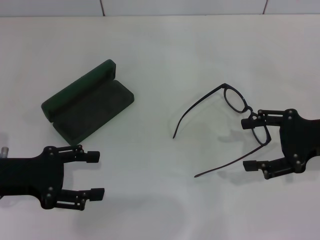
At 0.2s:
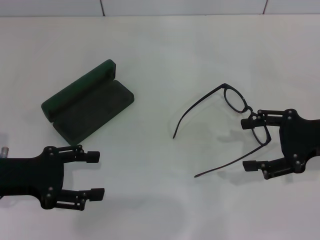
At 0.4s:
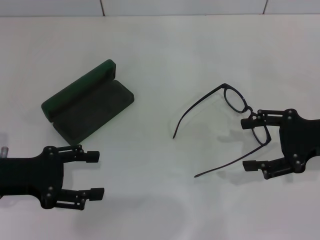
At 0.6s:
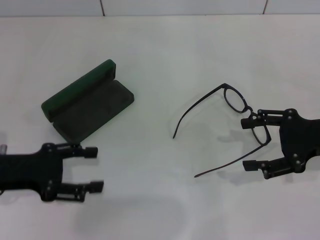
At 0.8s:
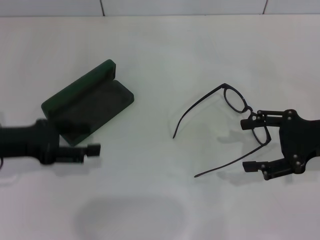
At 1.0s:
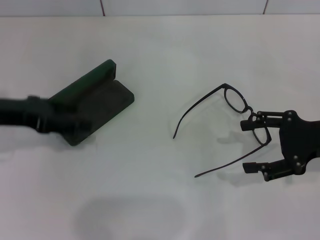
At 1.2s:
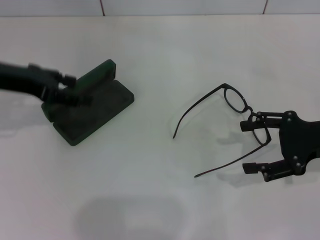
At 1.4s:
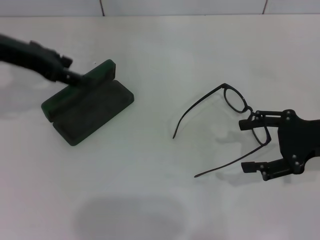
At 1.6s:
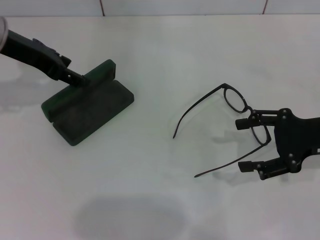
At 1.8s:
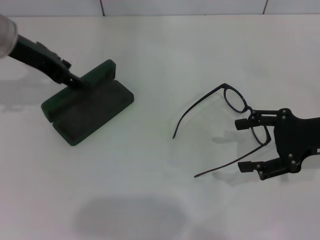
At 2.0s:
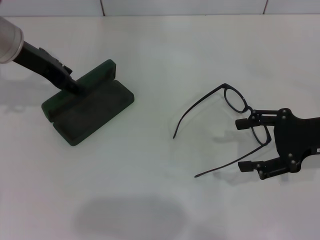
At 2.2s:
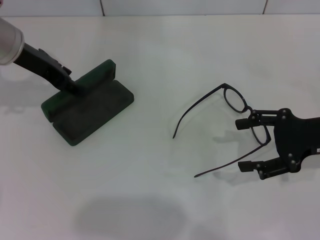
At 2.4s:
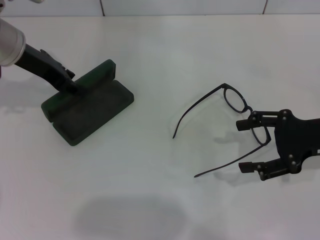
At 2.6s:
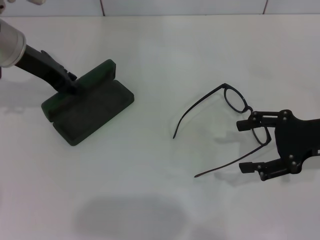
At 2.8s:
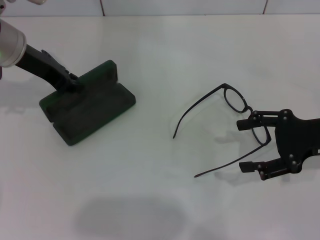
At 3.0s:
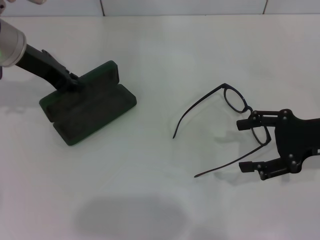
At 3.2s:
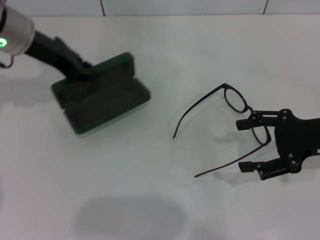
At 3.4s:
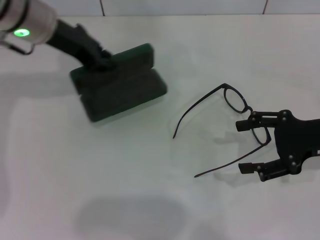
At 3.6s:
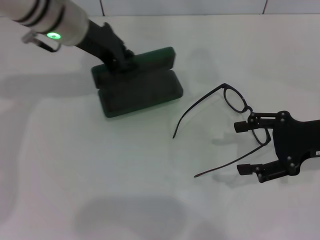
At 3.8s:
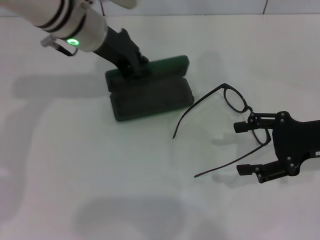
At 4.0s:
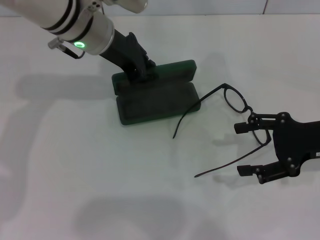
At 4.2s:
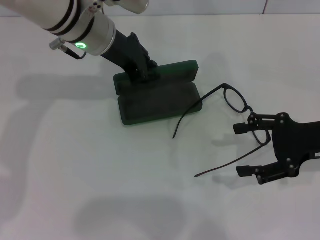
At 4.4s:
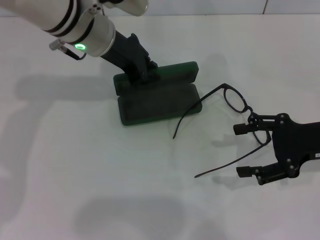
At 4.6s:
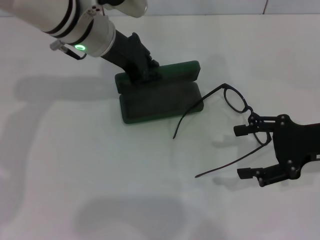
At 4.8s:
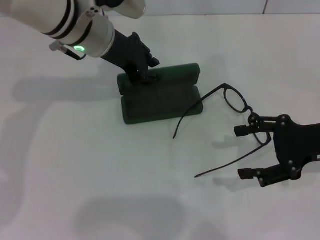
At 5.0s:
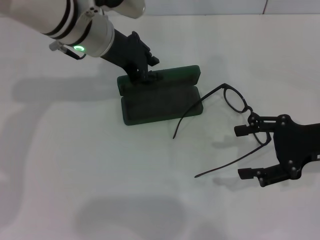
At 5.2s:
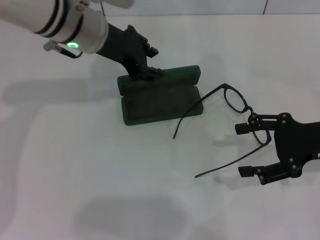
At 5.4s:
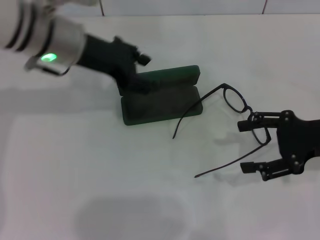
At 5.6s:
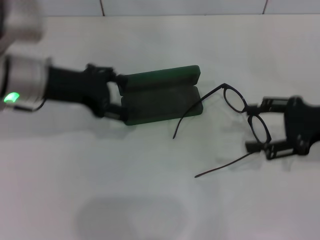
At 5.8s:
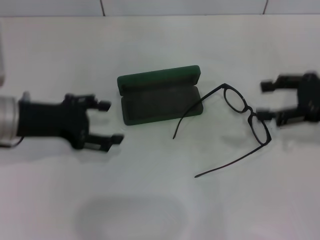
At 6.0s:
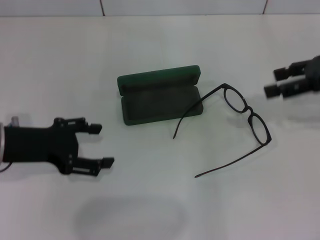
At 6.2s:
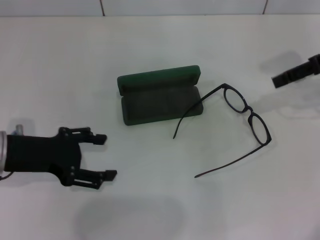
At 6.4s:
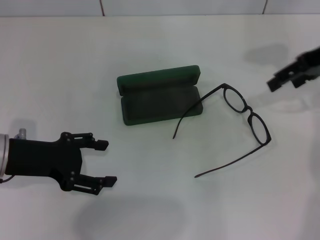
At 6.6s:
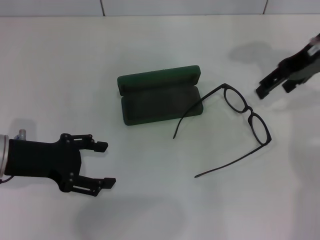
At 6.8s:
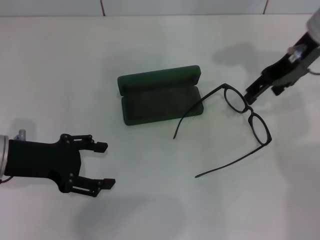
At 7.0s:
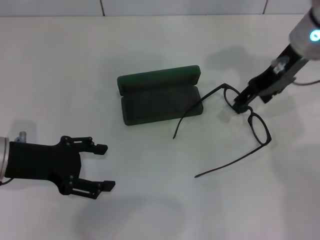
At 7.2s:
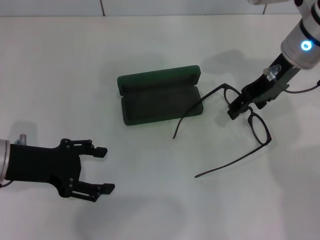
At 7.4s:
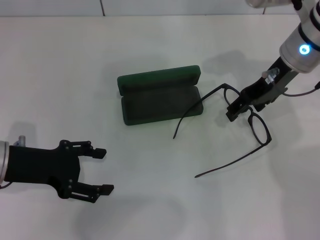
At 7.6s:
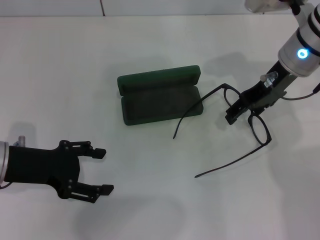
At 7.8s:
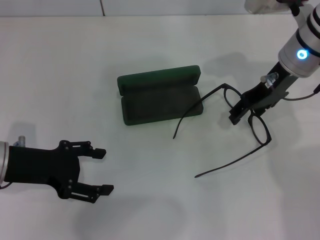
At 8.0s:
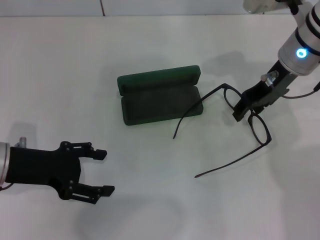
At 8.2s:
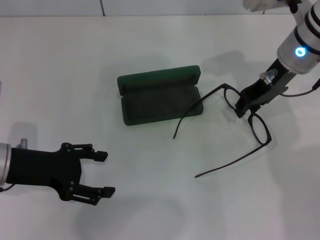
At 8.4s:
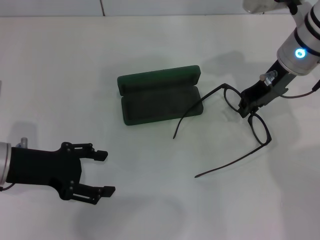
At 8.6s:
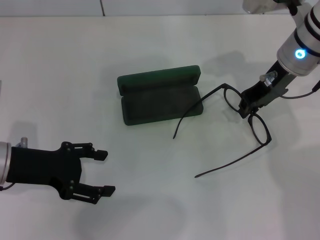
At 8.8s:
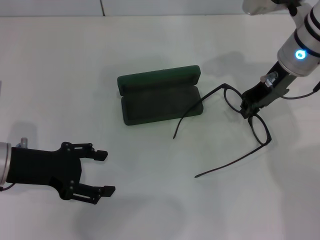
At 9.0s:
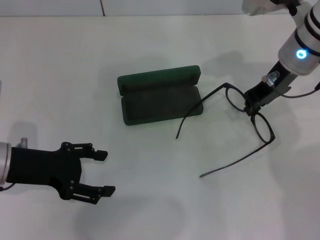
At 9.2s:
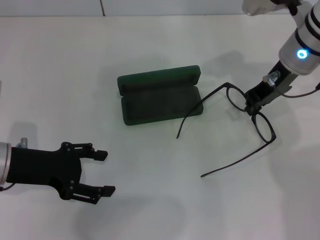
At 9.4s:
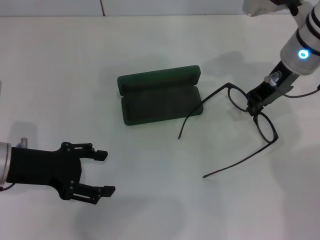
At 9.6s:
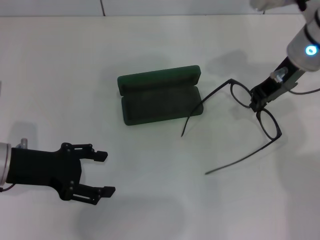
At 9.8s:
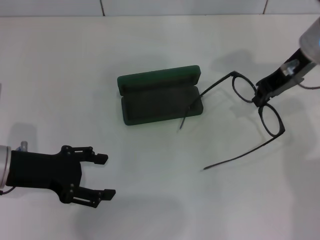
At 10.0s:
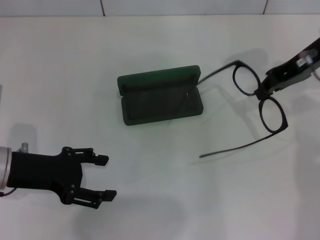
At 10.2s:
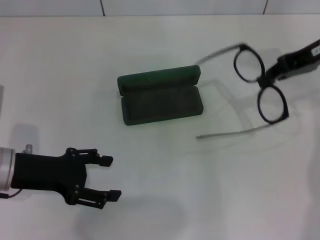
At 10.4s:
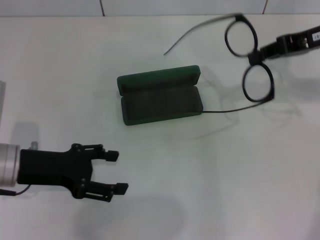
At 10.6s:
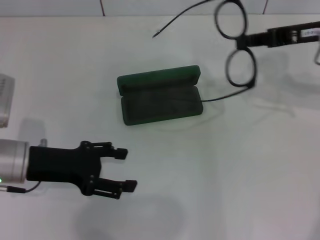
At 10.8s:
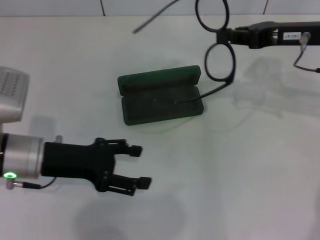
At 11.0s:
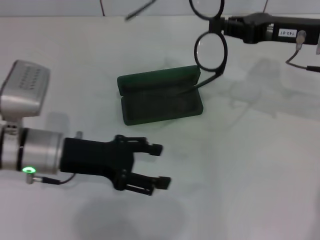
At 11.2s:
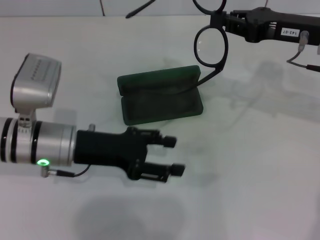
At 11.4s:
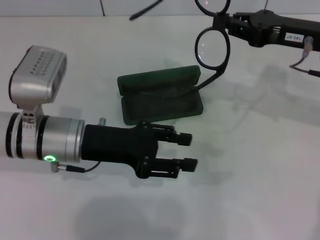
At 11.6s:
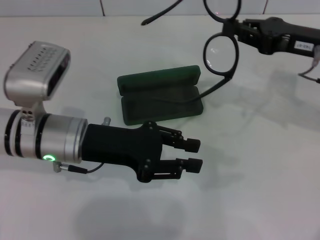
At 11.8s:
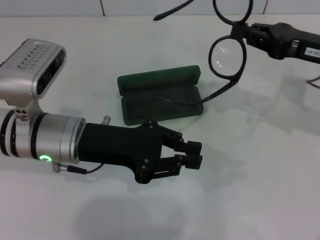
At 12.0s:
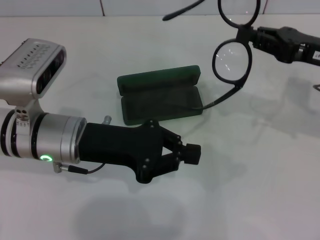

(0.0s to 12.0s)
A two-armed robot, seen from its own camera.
Step, 0.0s - 2.8s: Grab the glasses case with your left hand.
Step, 3.0s - 5.0s: Place the glasses case in the center of the table with your left hand.
Step, 5.2s - 8.4s: Grab the eyeglass frame with your right hand.
0.0s - 1.6s: The left gripper goes about 20 cm forward and upward.
1.6s - 3.0s: The left gripper closes.
3.0s - 4.4s: The left gripper shifts roughly 10 cm to the right.
4.4s - 6.0s: The left gripper shifts some 20 cm to the left, backward and downward, and opens. The right gripper shifts about 10 cm upward and forward.
6.0s - 7.6s: The right gripper shifts about 15 cm to the left.
7.6s - 9.0s: The right gripper closes up.
9.0s - 10.4s: The right gripper shifts approximately 10 cm to the right.
10.4s - 12.0s: The left gripper shifts some 10 cm to the right, and closes its fingers, while the right gripper travels downward by approximately 5 cm.

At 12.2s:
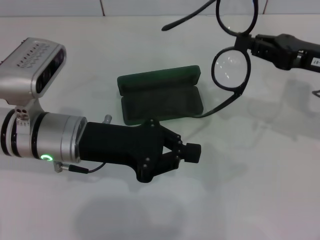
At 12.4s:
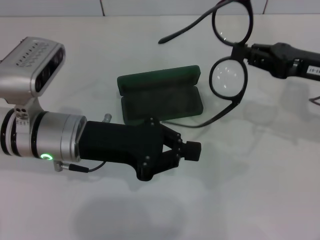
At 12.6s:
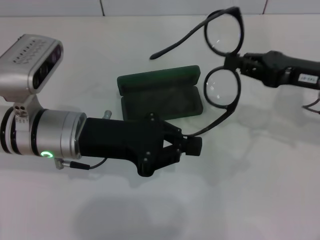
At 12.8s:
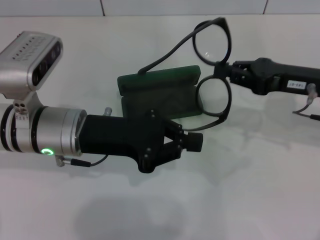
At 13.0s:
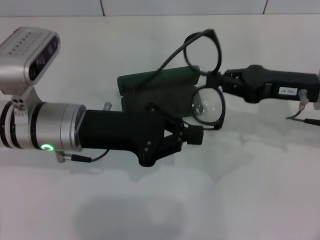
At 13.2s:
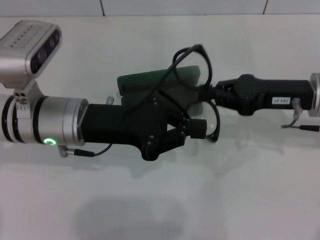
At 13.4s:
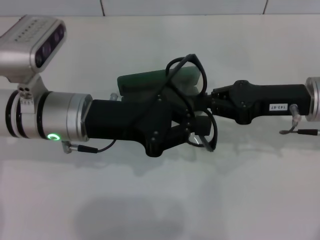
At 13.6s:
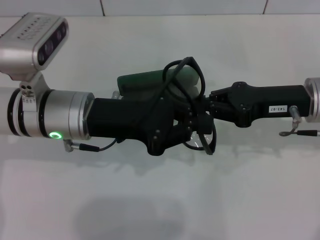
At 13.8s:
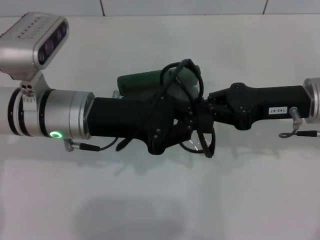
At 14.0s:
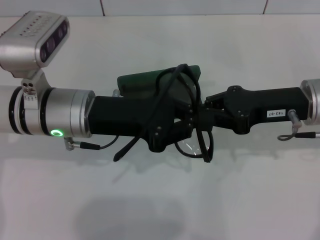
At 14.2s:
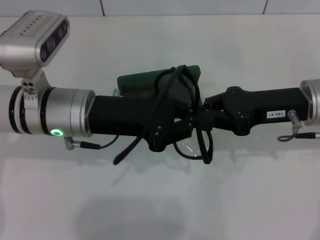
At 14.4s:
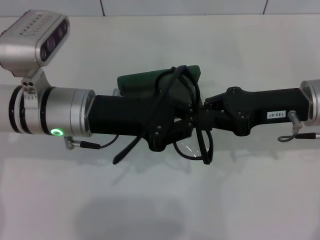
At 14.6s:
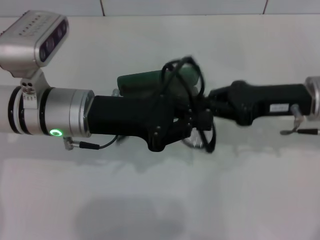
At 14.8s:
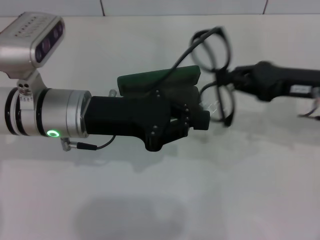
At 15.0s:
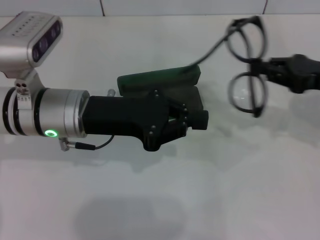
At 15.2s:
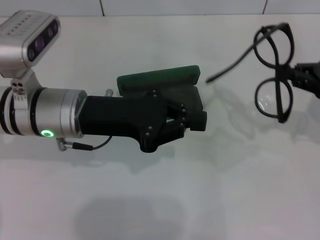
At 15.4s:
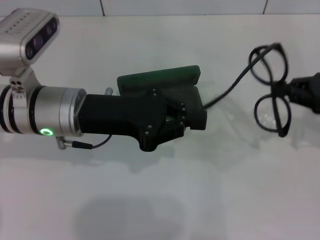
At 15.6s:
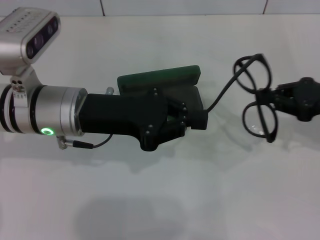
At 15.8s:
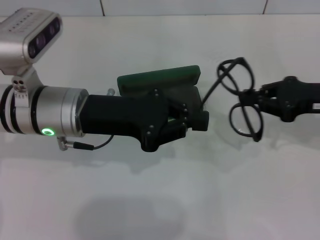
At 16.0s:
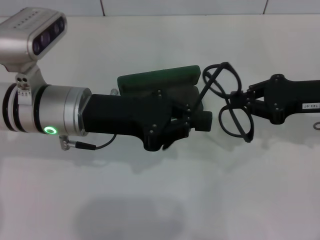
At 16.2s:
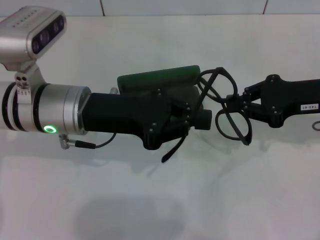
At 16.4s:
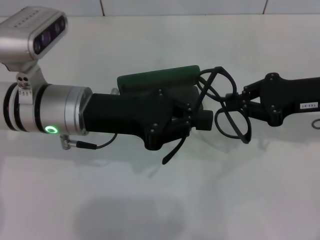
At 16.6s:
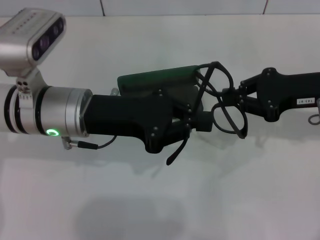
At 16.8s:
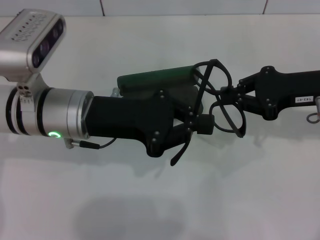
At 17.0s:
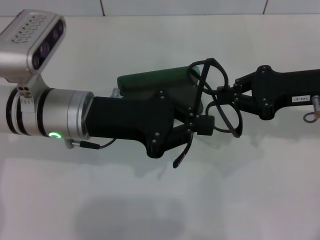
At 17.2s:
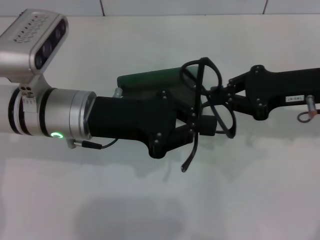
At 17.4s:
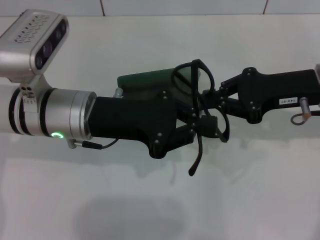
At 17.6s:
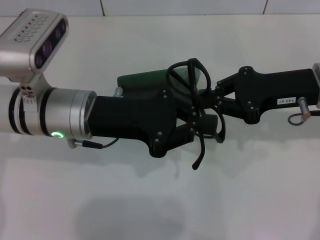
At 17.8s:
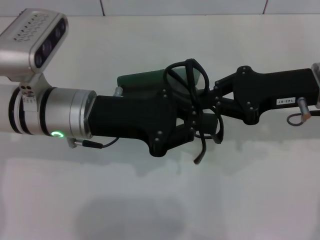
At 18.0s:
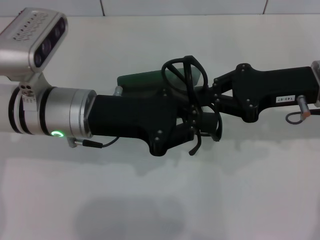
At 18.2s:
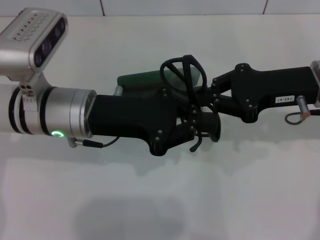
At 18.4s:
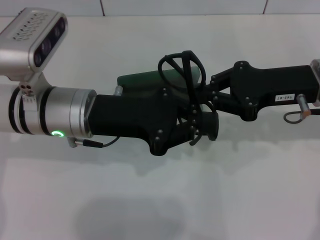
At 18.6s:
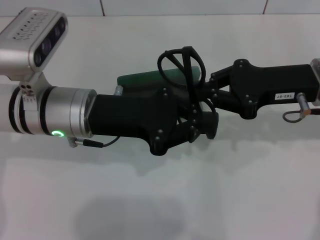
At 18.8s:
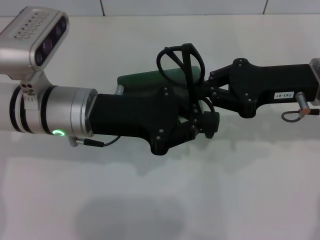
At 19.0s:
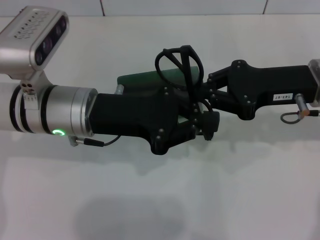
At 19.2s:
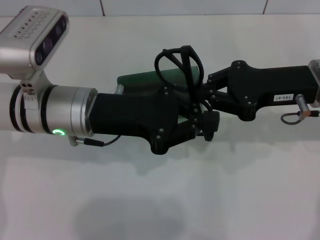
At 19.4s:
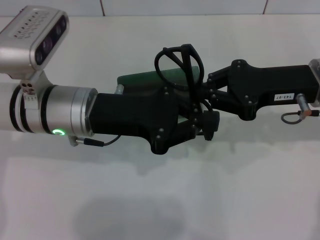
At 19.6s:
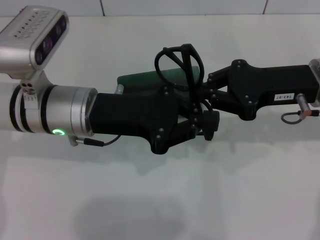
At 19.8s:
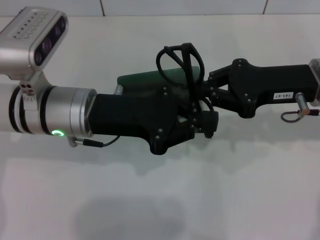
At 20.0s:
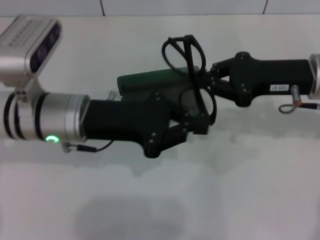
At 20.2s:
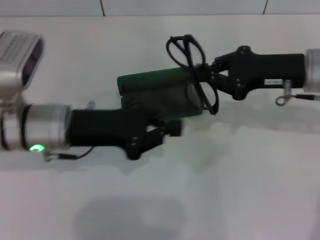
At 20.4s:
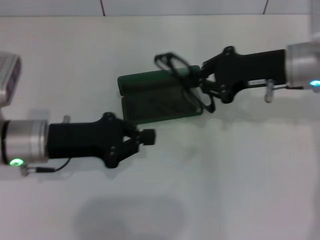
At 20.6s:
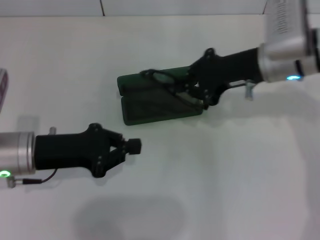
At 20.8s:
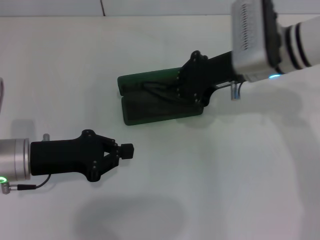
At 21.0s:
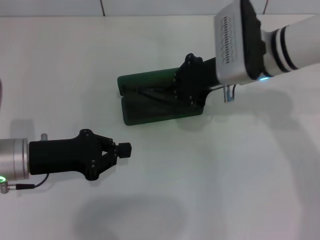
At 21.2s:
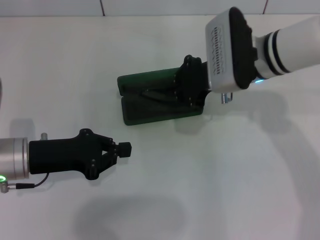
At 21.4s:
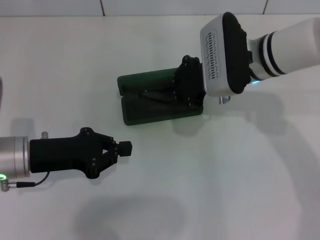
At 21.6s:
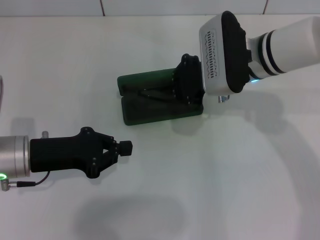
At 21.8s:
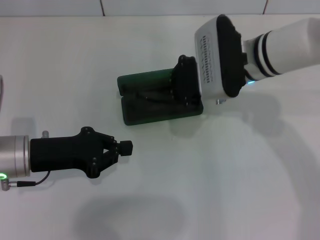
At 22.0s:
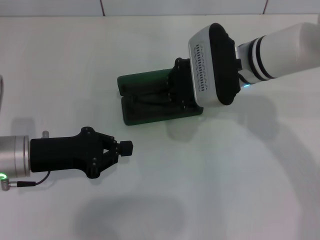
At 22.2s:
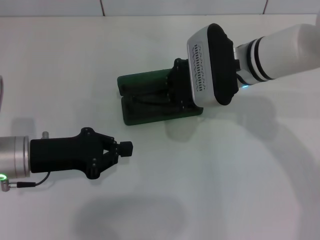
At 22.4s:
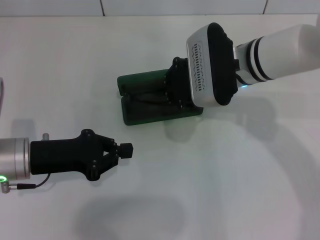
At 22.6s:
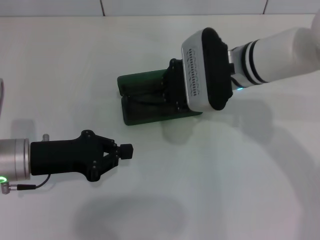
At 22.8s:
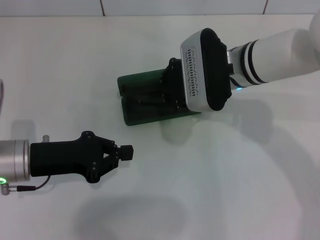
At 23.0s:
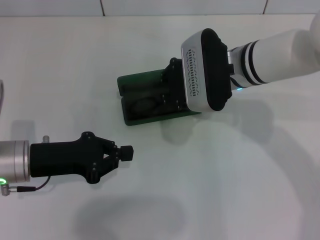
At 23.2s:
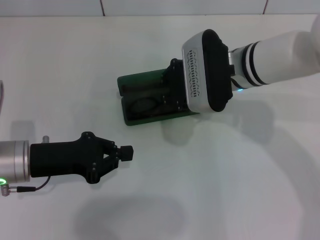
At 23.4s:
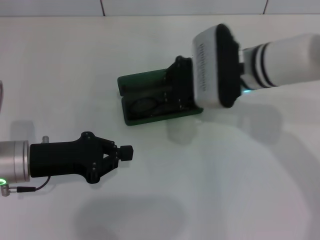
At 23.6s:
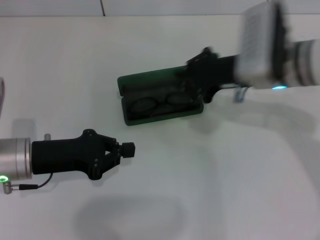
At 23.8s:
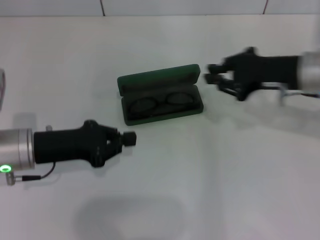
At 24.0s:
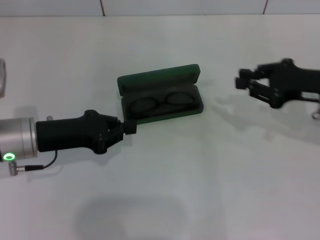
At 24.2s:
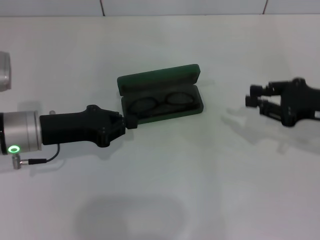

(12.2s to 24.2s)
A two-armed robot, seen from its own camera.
Step, 12.2s - 18.4s: Fold the frame with your left hand.
Step, 18.6s - 23.0s: Put the glasses into the case with your right hand.
12.2s - 13.8s: The right gripper shifts some 5 cm to the left.
13.8s - 15.2s: The right gripper goes approximately 10 cm to the right.
15.2s - 16.6s: The right gripper shifts some 5 cm to the left.
16.6s - 18.2s: The grippers stay close to where they were, moving slightly.
18.2s - 19.8s: Both grippers stay put.
19.8s - 21.2s: The right gripper moves to the left and forward, some 10 cm; the left gripper travels to the left and downward by some 10 cm.
21.2s - 22.6s: The grippers stay close to where they were, moving slightly.
22.6s - 24.2s: The right gripper moves to the right, roughly 20 cm.
